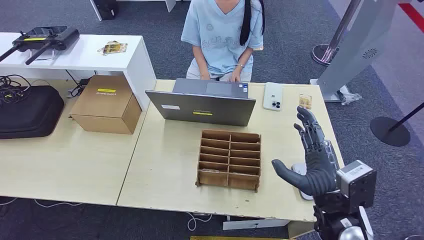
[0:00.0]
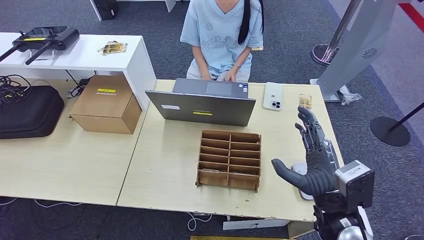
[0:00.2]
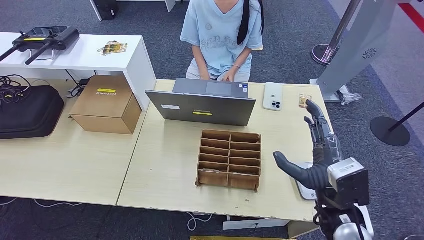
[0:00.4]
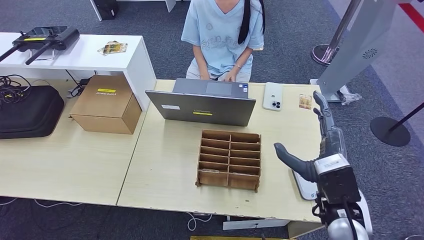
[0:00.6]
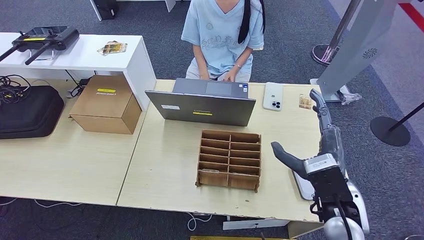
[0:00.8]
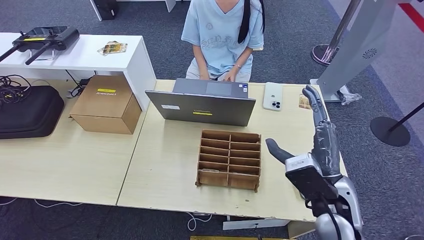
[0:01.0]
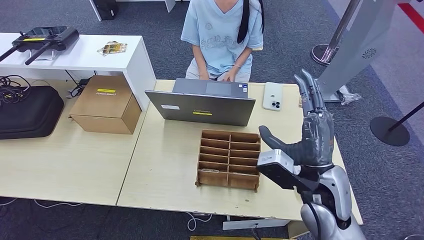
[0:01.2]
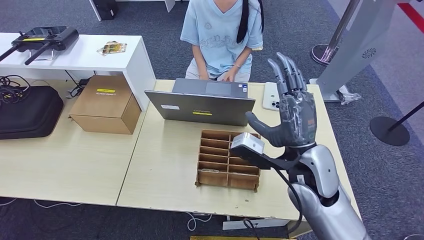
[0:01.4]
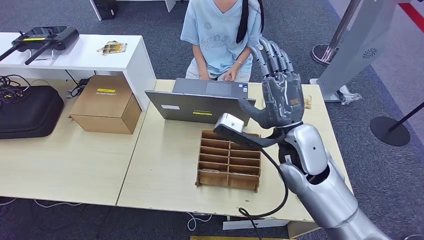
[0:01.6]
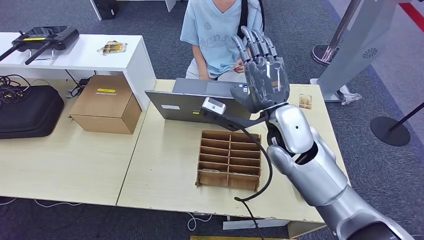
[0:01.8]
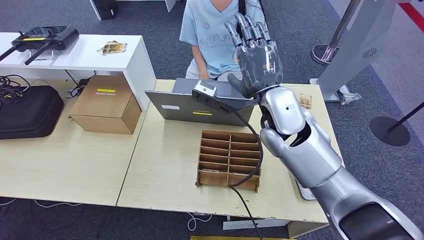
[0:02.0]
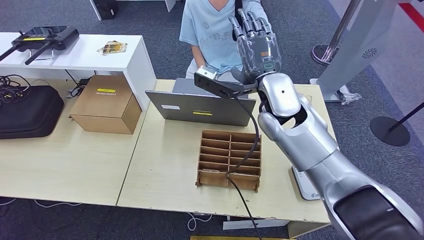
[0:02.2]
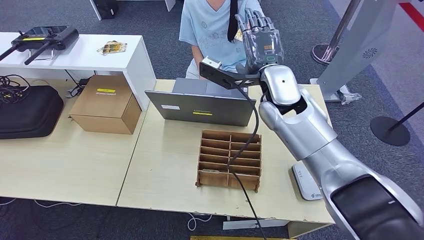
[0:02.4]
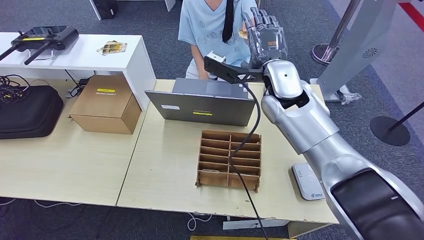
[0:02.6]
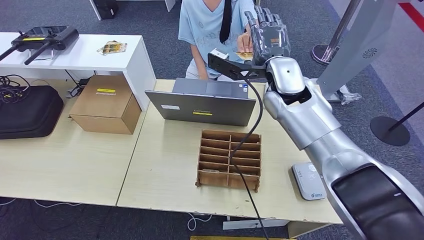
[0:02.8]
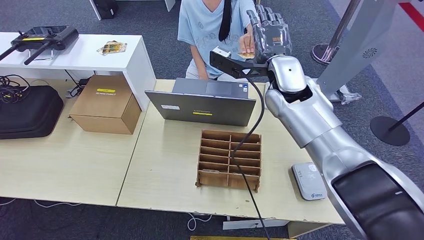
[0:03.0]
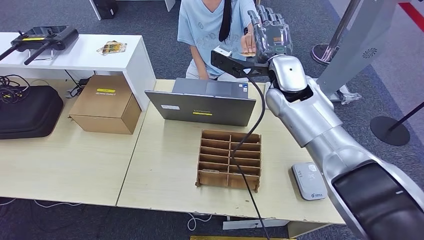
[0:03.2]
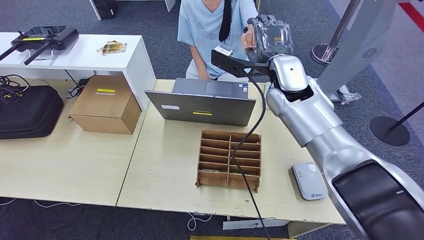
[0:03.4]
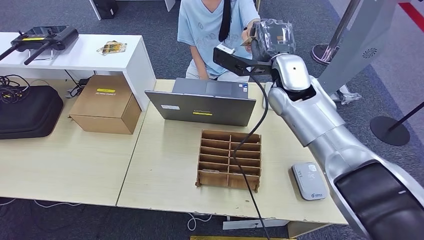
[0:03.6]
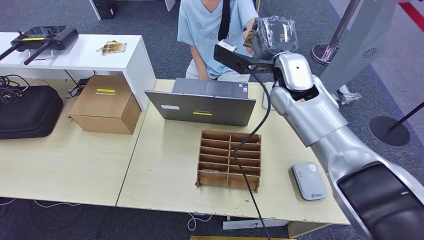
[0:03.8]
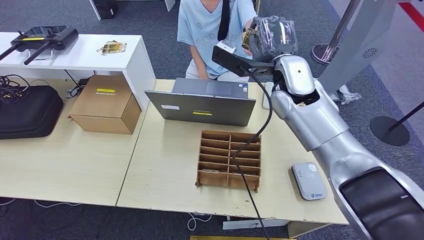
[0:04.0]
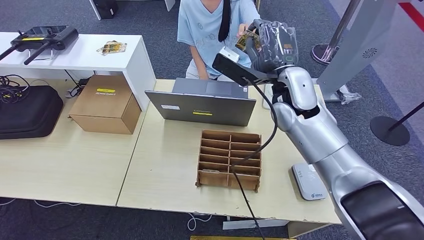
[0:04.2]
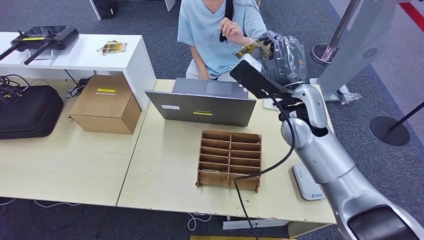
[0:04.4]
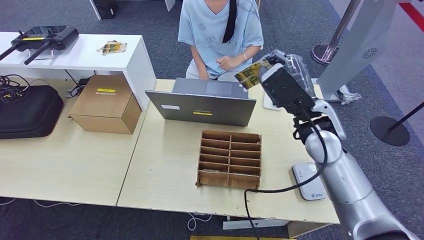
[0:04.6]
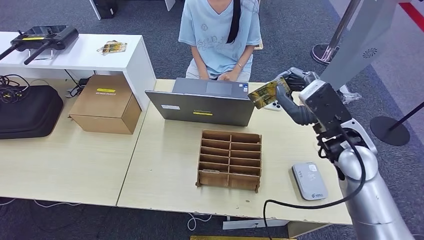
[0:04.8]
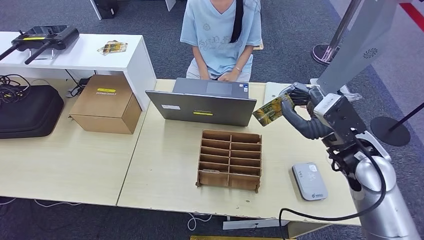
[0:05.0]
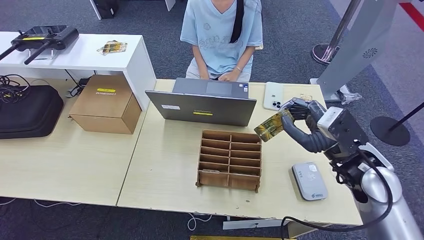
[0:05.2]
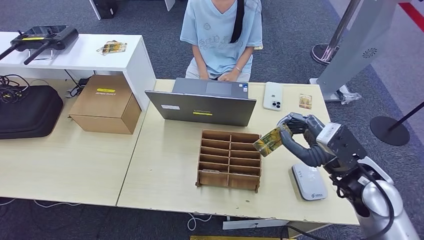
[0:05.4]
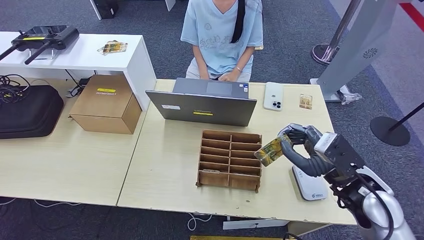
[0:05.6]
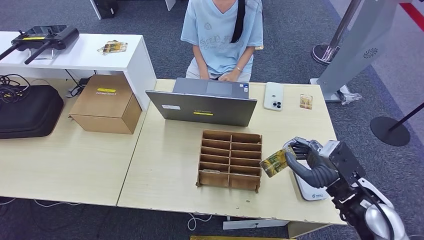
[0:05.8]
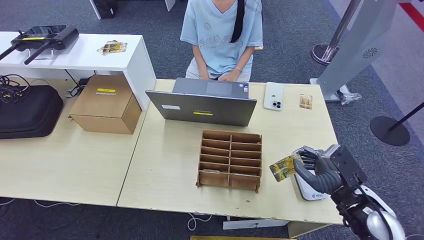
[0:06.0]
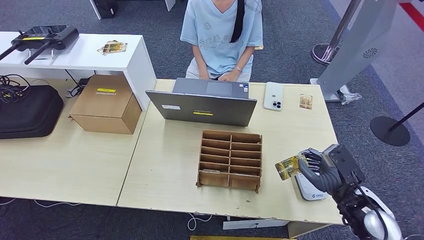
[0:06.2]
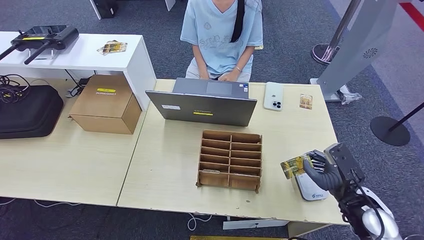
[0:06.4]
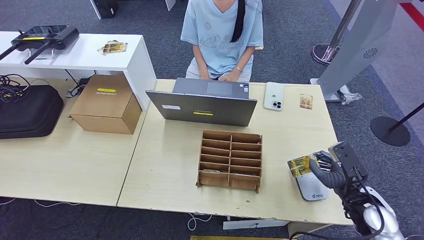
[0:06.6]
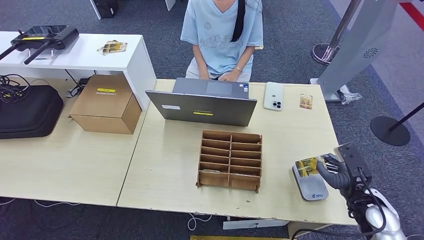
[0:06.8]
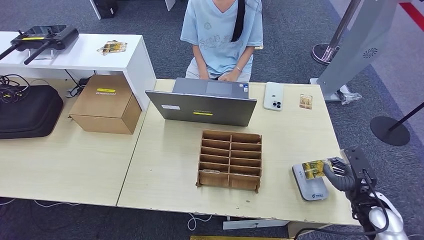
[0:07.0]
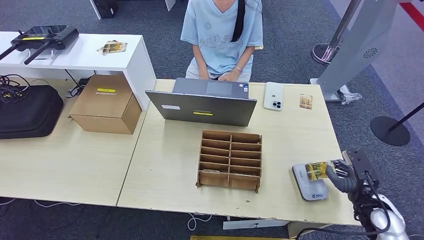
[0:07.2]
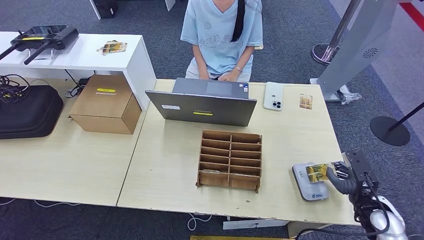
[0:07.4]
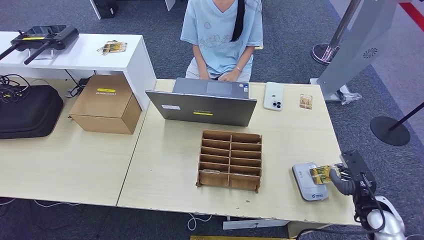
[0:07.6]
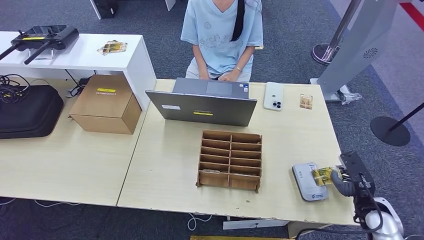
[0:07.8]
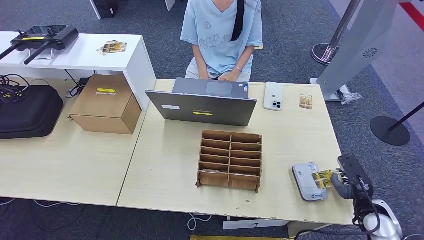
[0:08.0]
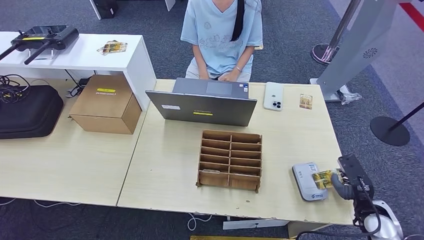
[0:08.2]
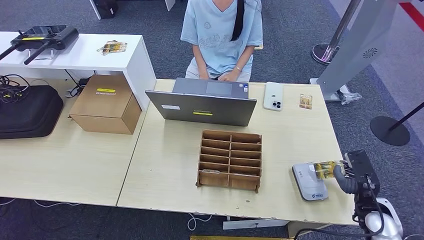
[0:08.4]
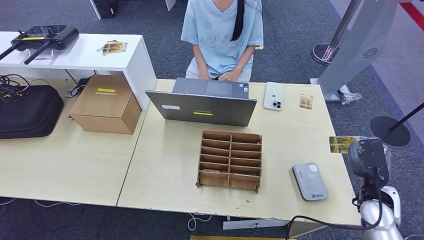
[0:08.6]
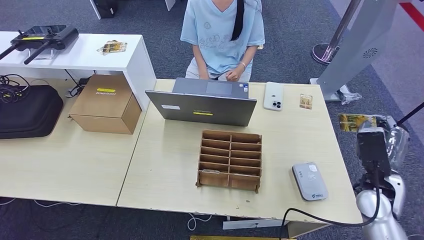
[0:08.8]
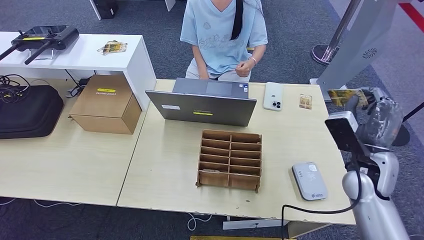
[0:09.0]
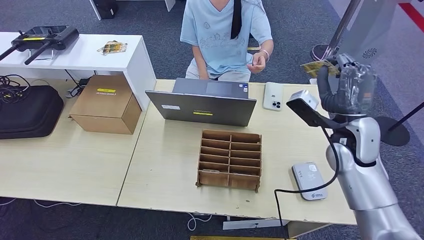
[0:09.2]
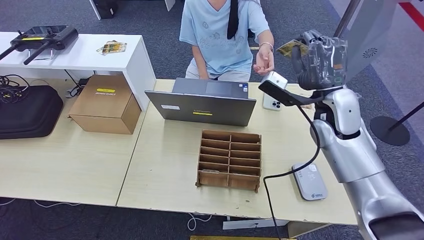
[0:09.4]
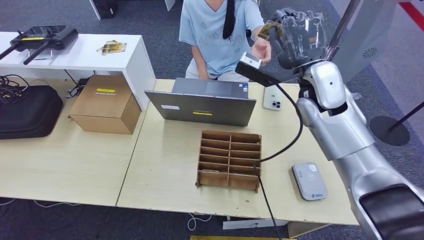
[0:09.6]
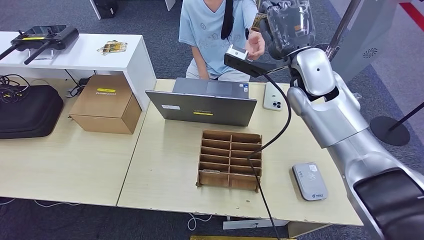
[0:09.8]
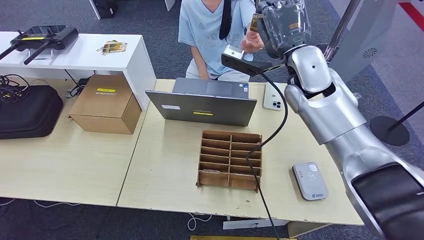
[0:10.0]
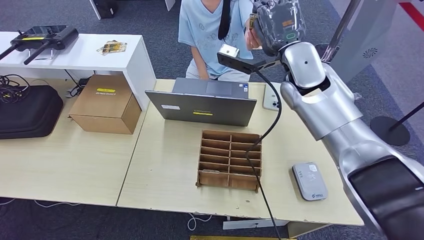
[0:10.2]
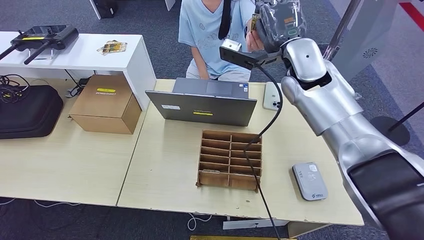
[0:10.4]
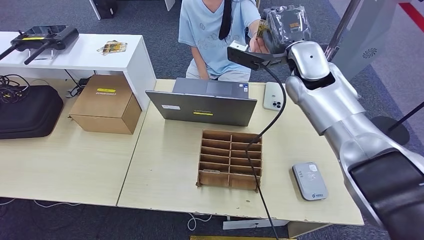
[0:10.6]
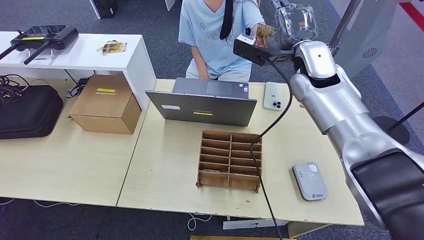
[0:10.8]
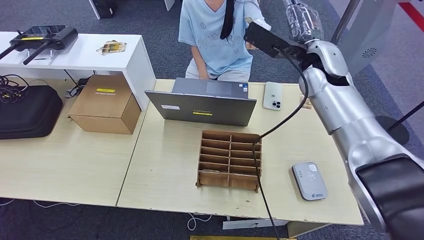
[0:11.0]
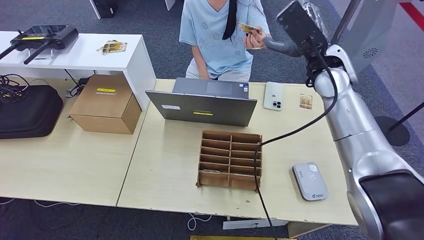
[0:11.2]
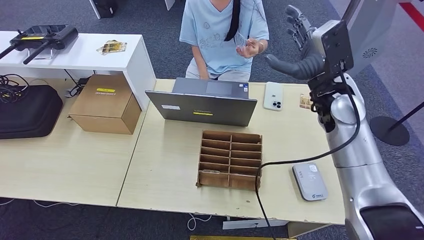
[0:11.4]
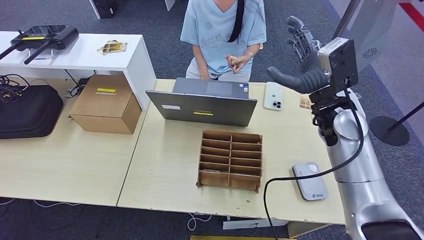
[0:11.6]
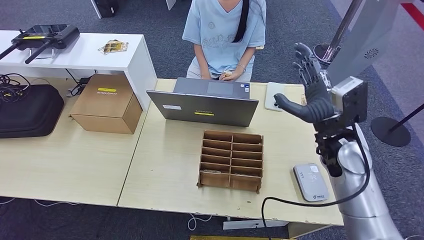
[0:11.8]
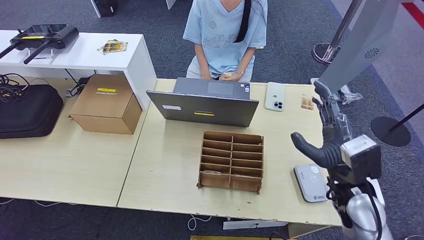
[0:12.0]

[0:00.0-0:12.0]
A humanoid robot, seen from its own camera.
Step, 0:00.0 to 0:04.8: Take the ID card from the person's hand.
Step, 0:05.0 to 0:07.6: Place the ID card on the card reader.
Step, 0:08.0 to 0:11.6: Hand the ID card to the person.
0:01.6 to 0:03.0: The right hand travels forward and upward by roughly 15 cm.
0:03.0 to 0:04.4: The right hand is displaced backward by roughly 5 cm.
0:04.4 to 0:06.0: The right hand heads backward, to the right and downward, covering approximately 25 cm.
0:06.0 to 0:07.6: The right hand is displaced to the right and downward by some 10 cm.
0:07.6 to 0:09.0: The right hand heads upward, forward and to the left, covering approximately 15 cm.
0:09.0 to 0:10.4: The right hand shifts about 30 cm forward, upward and to the left.

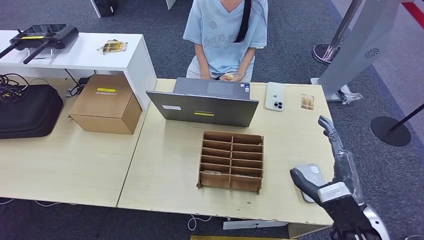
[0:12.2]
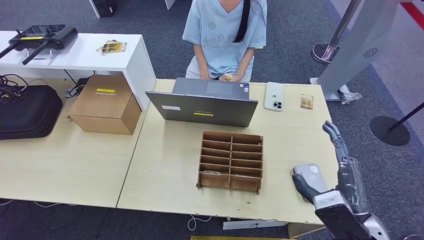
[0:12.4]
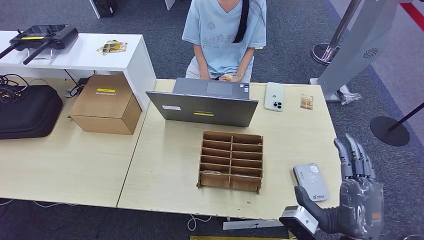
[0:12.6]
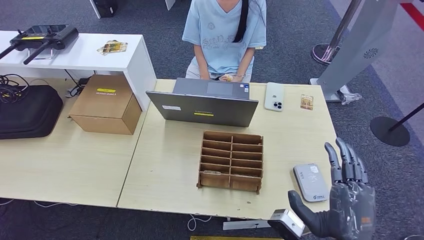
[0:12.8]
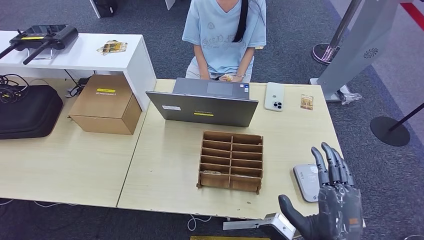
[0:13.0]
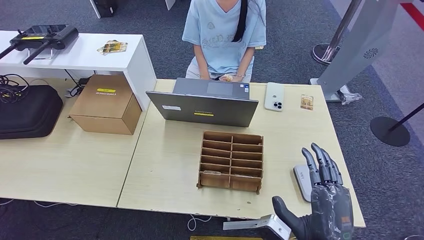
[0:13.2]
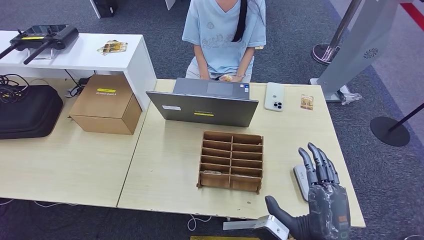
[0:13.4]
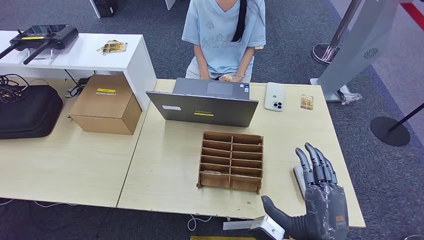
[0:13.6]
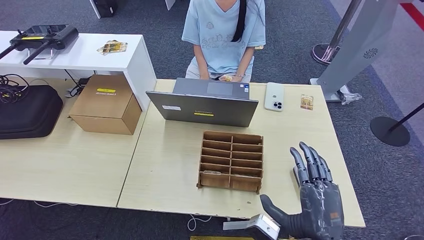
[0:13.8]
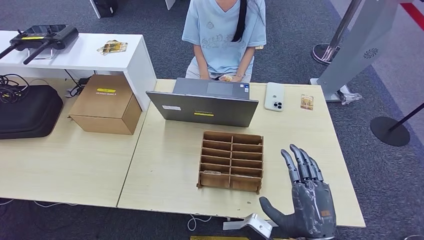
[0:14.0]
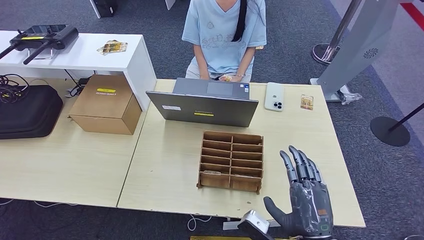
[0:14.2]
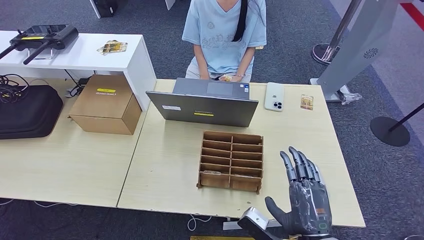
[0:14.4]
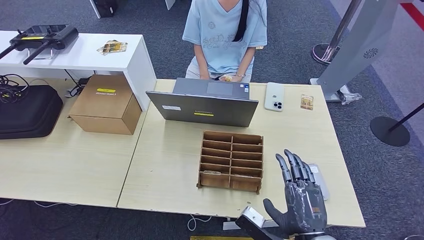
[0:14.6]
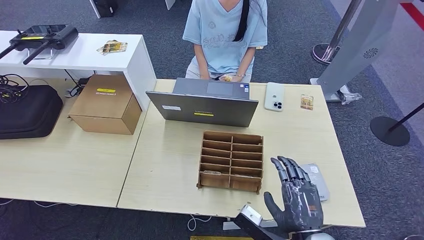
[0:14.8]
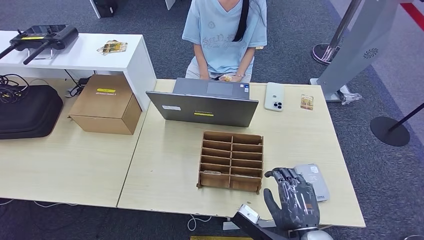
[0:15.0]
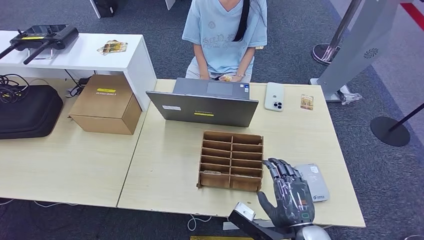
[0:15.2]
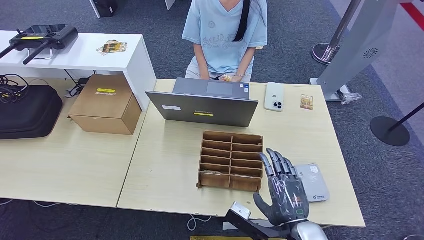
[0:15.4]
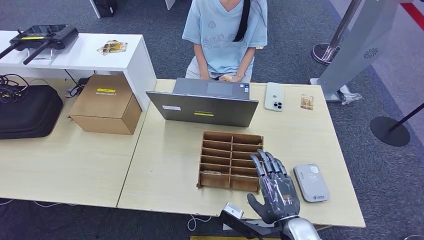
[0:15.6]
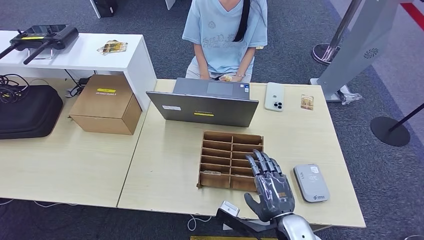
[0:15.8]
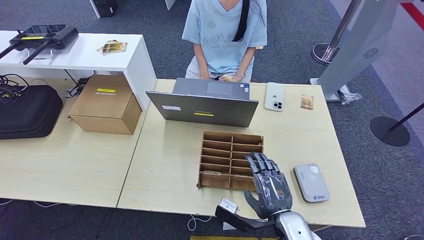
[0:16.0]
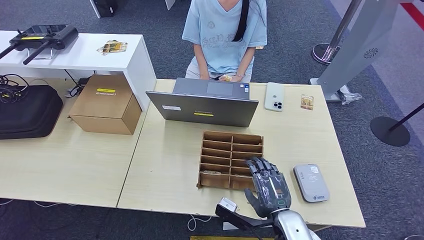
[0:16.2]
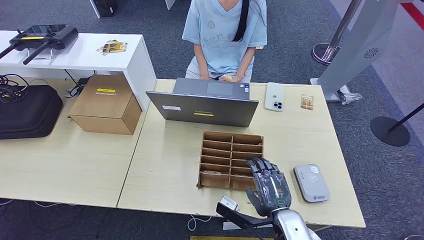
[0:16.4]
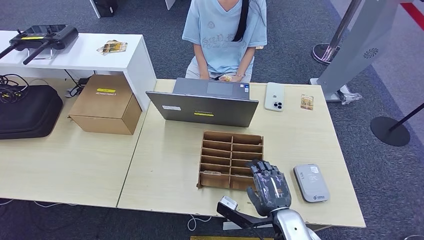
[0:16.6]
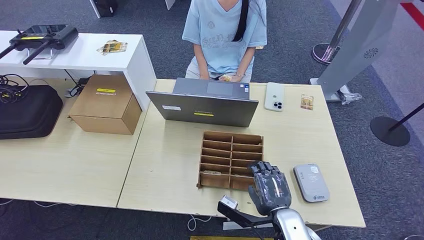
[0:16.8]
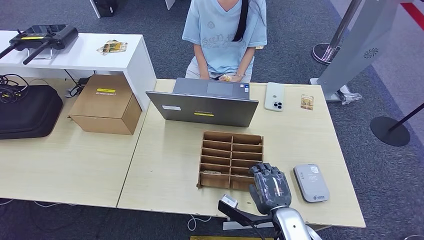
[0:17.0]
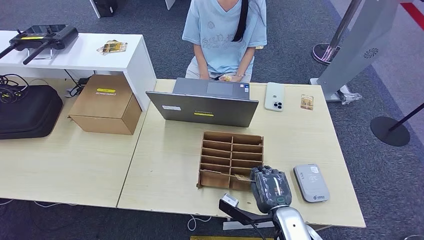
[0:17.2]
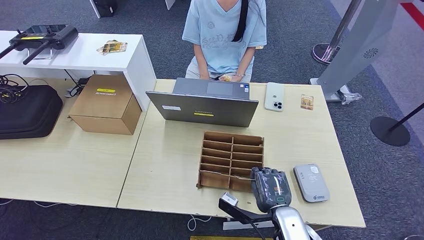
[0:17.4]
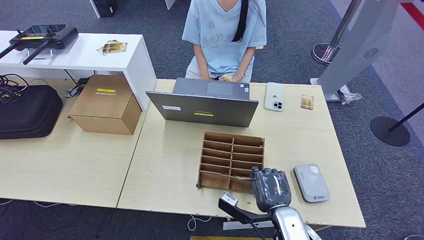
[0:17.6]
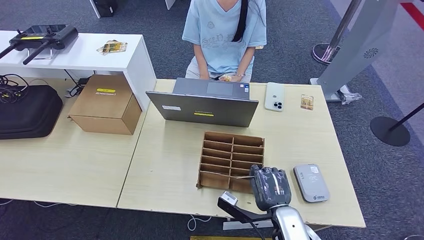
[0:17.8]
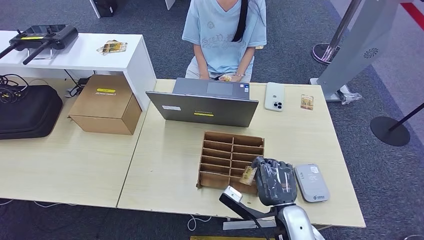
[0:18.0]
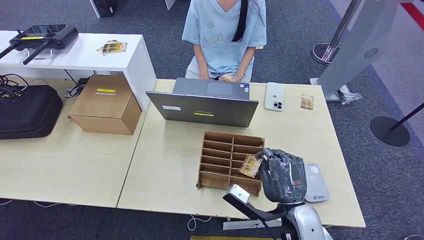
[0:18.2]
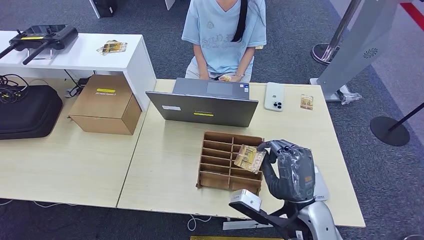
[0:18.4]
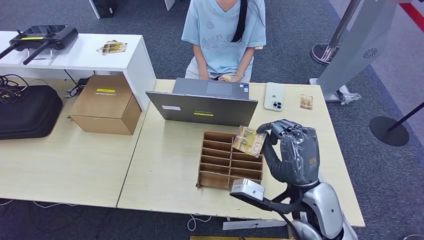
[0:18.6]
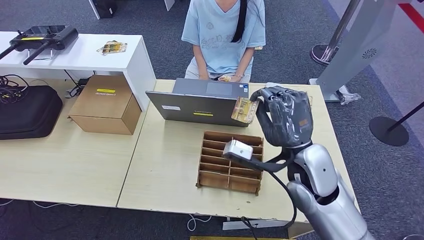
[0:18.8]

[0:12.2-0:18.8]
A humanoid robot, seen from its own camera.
Step, 0:15.0 to 0:18.6: Pick up the room key from the key card box.
0:12.2 to 0:13.8: The right hand goes approximately 10 cm to the left and backward.
0:13.8 to 0:15.4: The right hand ends up about 5 cm from where it was.
0:15.4 to 0:17.2: The right hand shifts some 5 cm downward.
0:17.2 to 0:18.8: The right hand travels upward and forward by about 20 cm.
